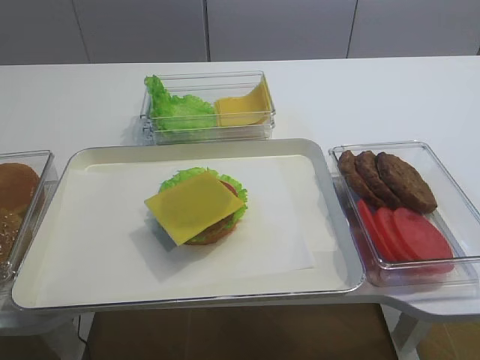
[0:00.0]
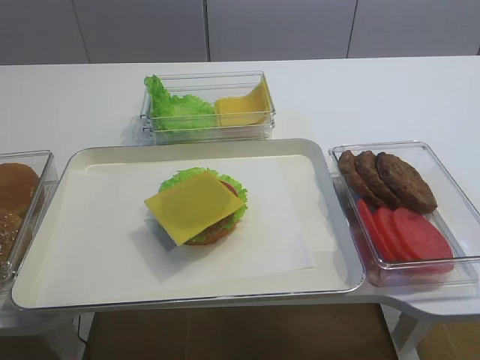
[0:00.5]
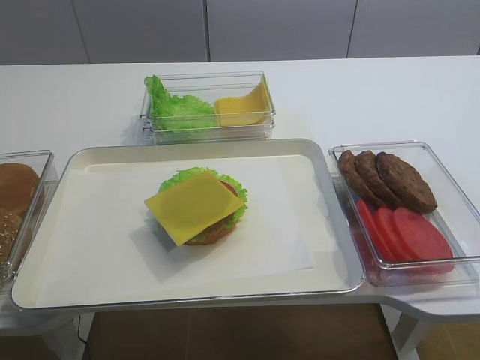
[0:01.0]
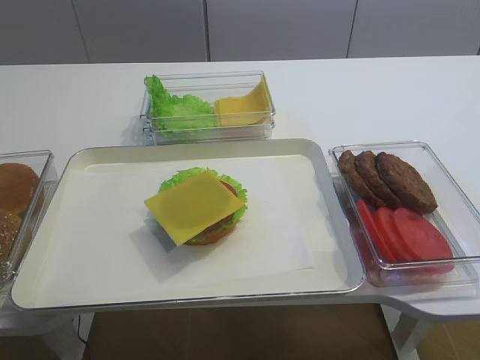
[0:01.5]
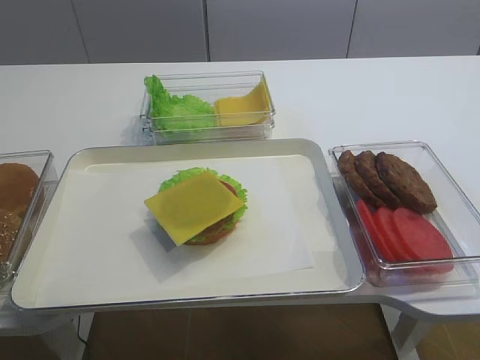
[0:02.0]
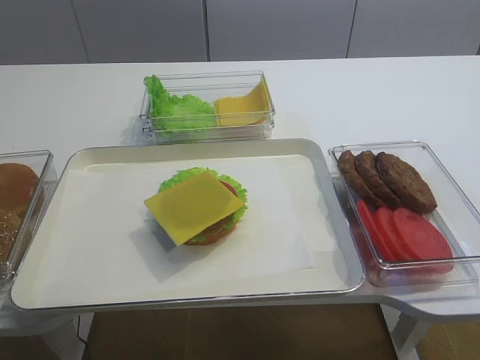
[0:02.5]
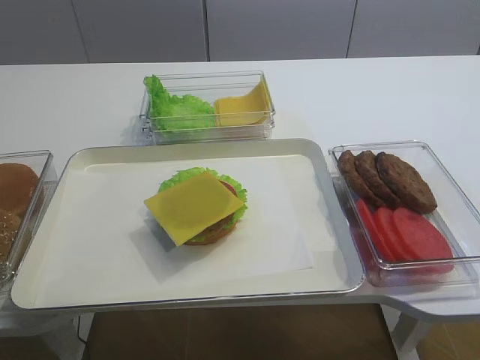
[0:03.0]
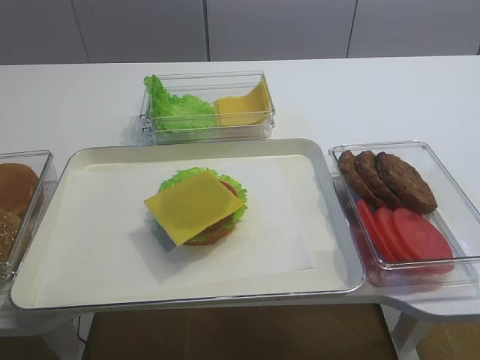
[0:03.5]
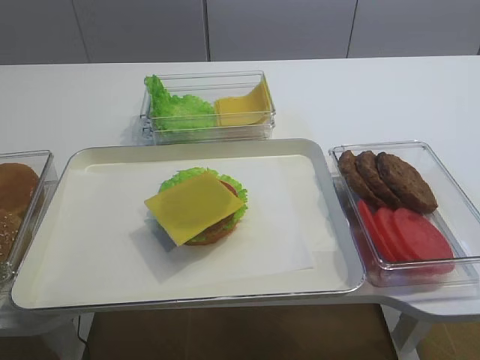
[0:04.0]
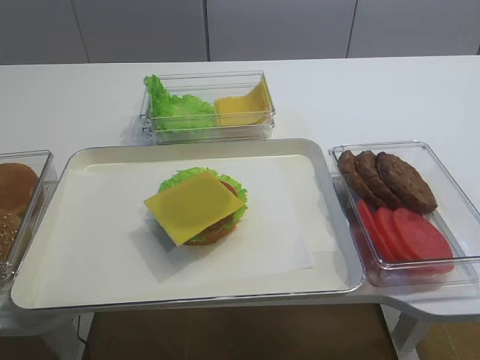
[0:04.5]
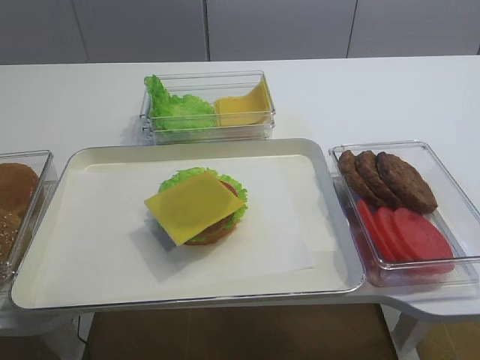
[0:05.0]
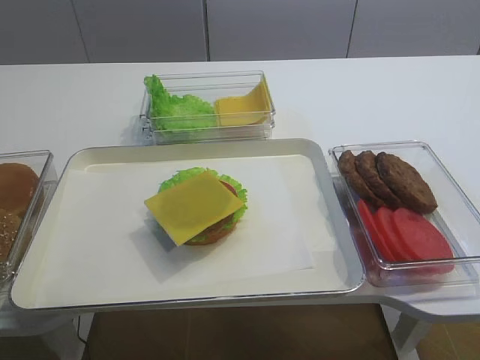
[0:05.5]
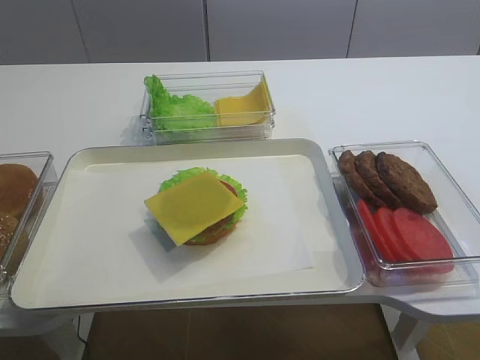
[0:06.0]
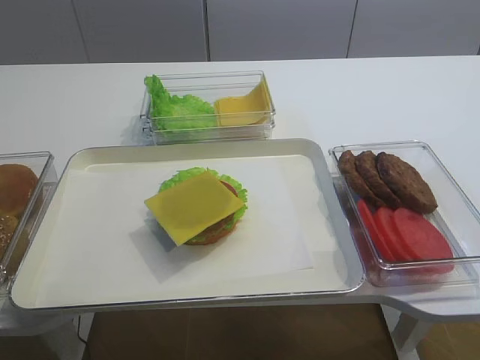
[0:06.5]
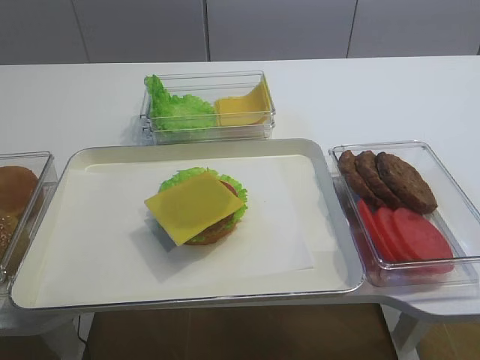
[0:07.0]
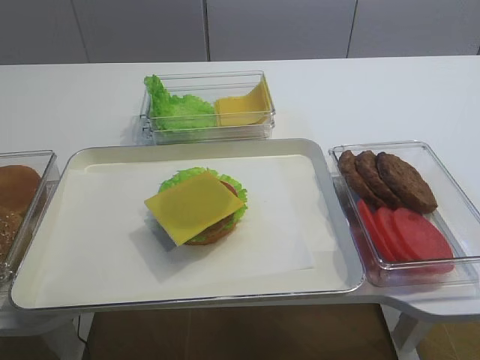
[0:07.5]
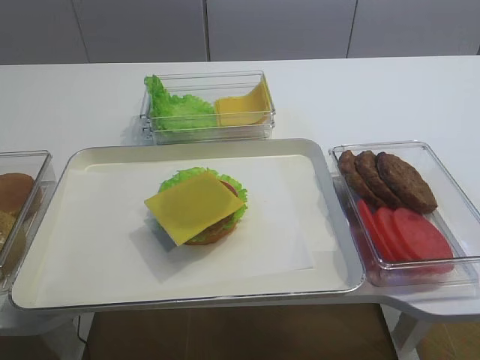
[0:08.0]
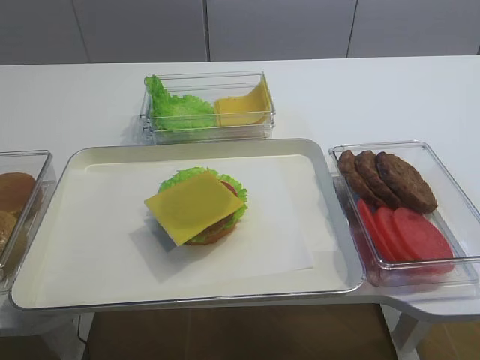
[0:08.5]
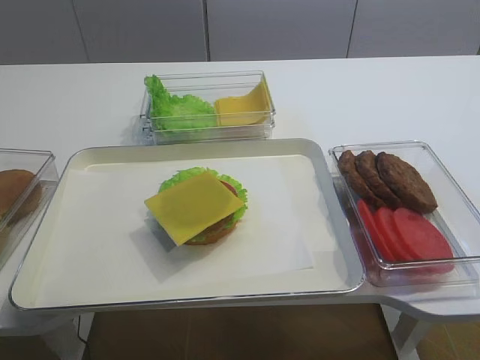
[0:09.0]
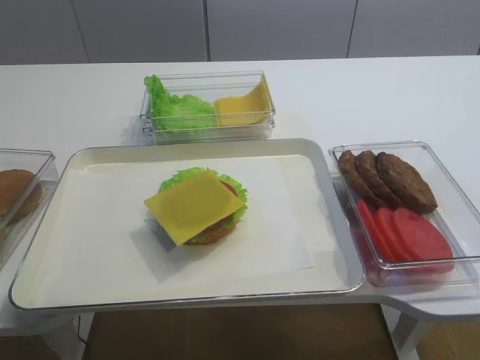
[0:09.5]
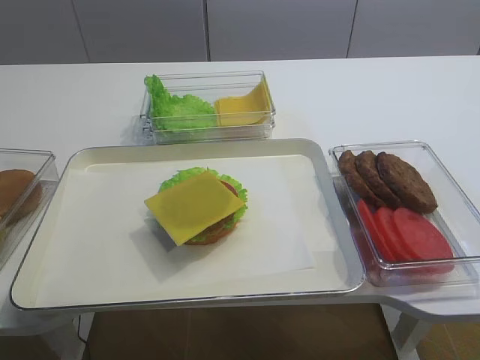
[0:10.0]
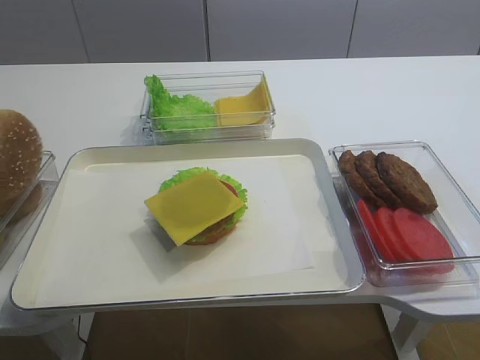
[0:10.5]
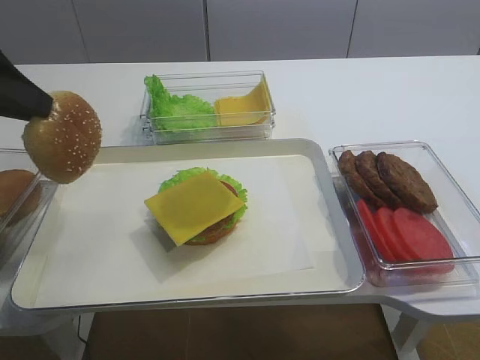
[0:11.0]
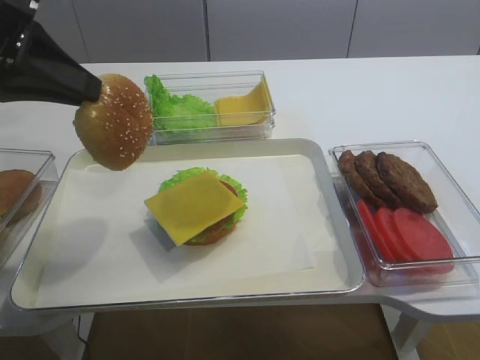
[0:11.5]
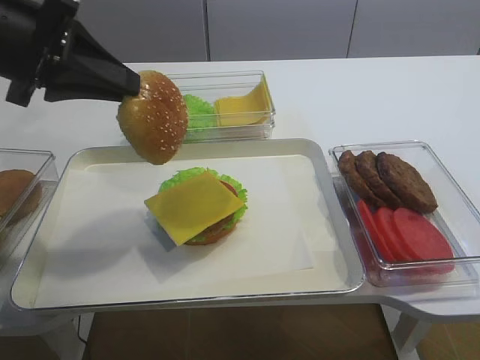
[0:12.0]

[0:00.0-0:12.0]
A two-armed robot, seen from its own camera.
Step, 0:00.0 to 0:10.0: Pick up the hamburger lid with the left gripper.
0:08.0 to 0:10.0: The grippers move only a little.
0:10.0 to 0:12.0: The left gripper is displaced to the right by about 15 cm.

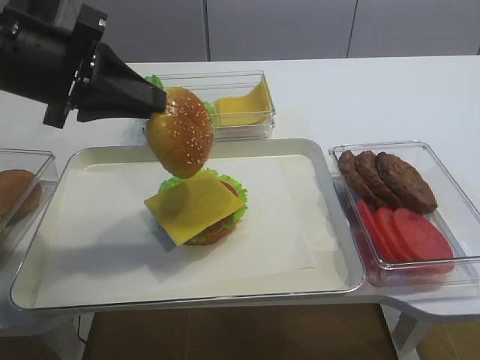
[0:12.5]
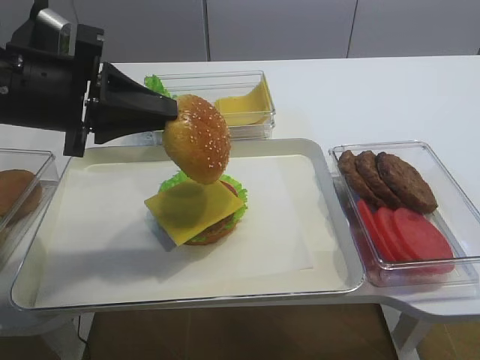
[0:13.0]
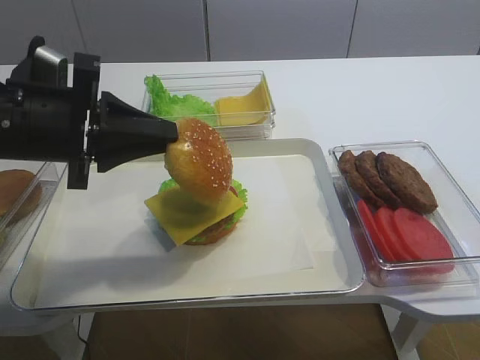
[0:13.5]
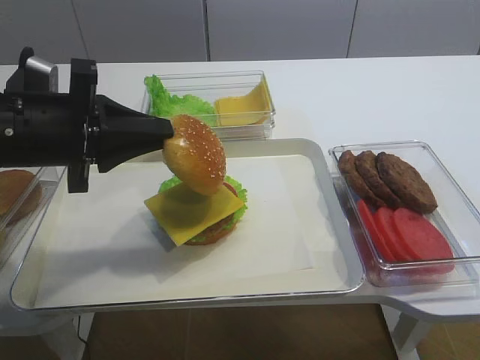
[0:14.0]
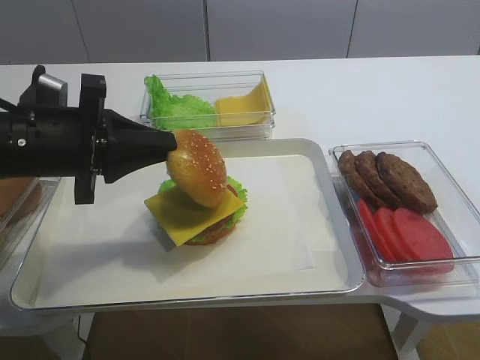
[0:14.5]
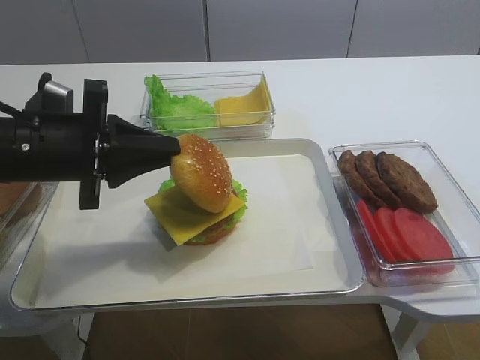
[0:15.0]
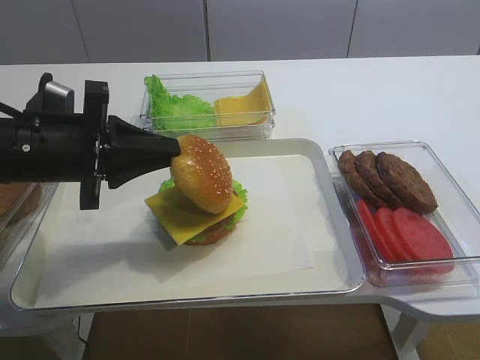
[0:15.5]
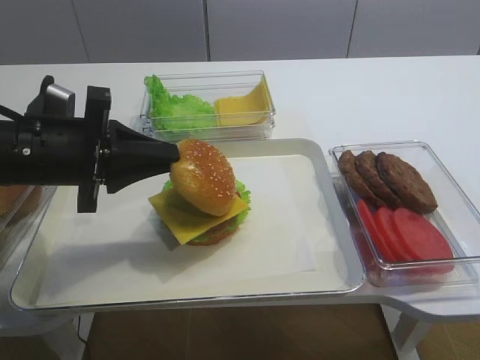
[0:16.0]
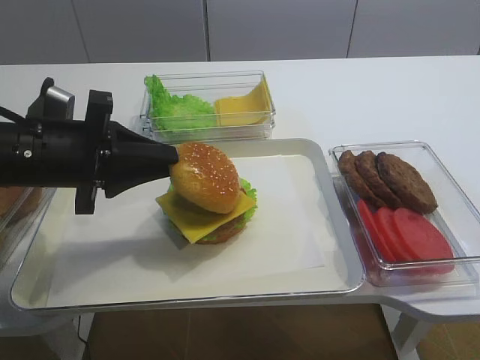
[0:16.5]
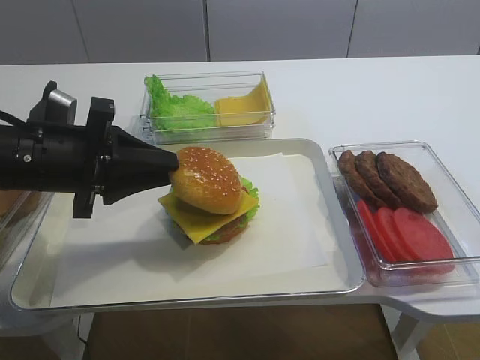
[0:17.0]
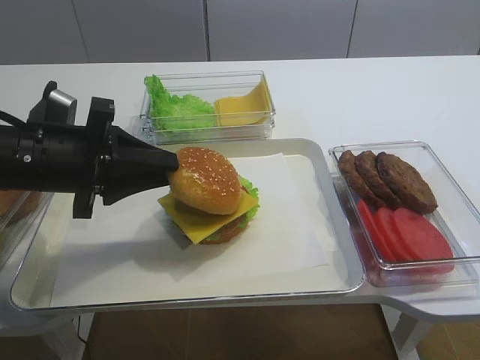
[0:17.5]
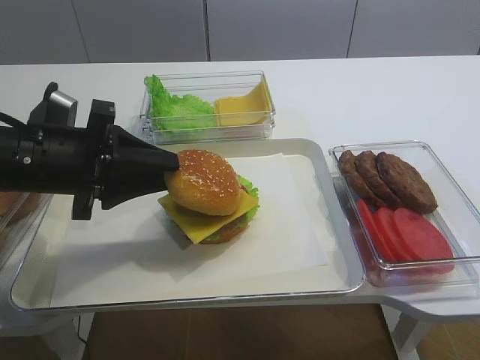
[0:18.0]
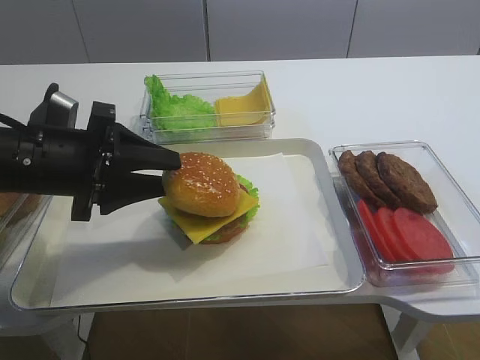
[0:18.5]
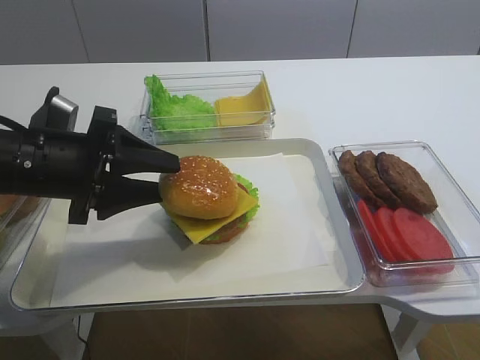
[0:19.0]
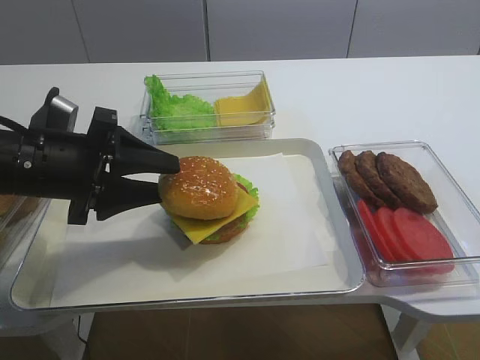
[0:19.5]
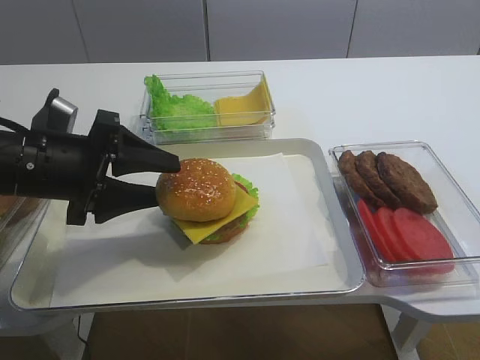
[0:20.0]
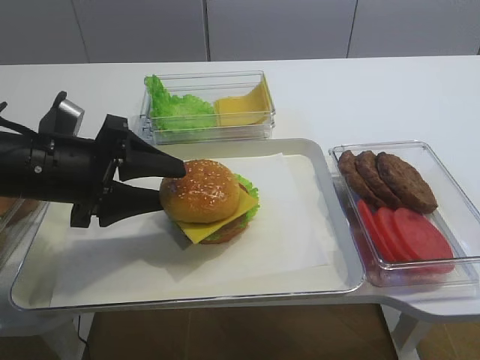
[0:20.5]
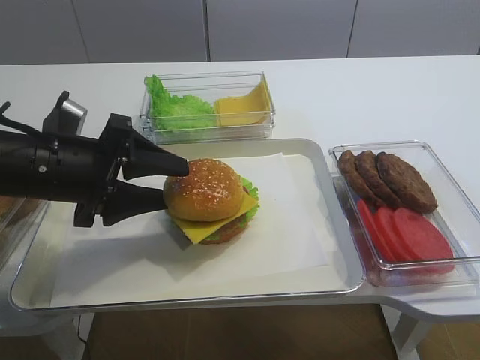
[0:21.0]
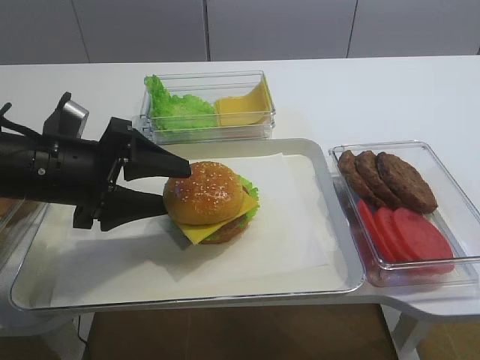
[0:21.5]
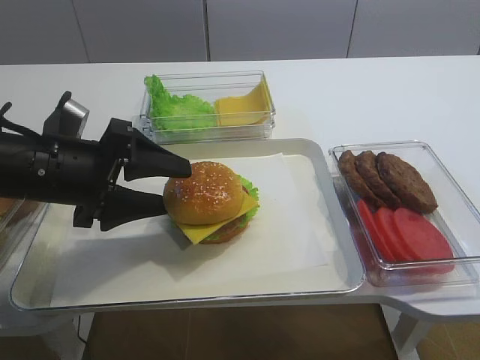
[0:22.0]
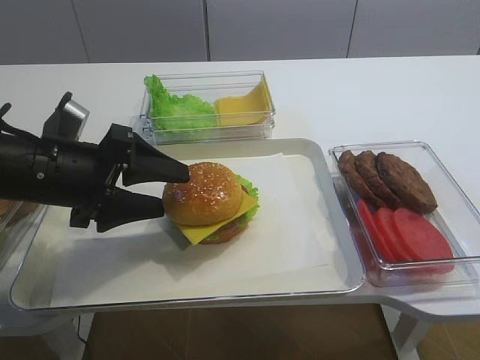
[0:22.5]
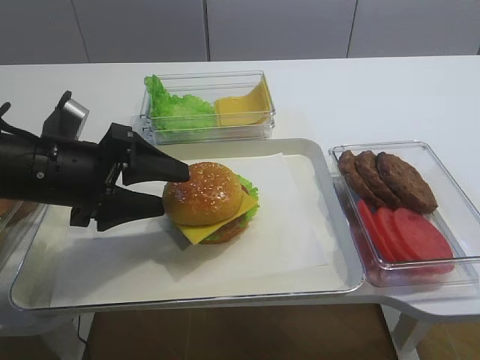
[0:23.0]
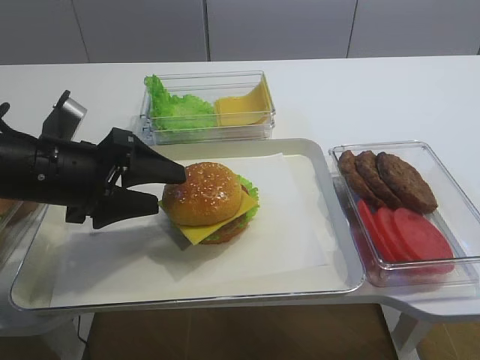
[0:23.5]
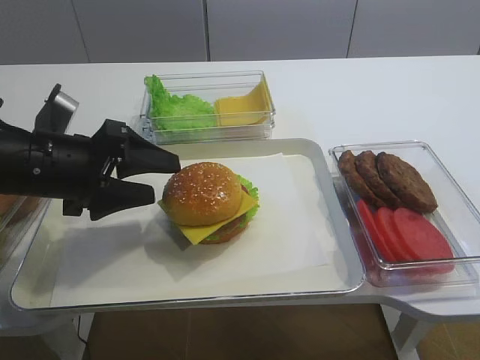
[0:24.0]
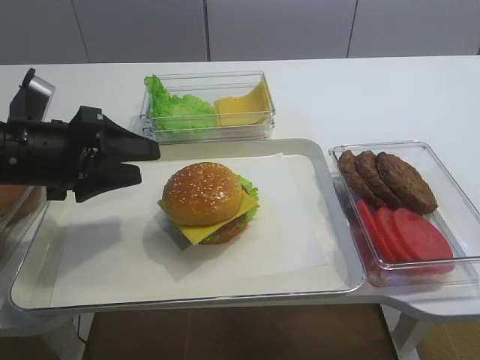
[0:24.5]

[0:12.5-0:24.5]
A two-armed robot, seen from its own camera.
0:12.5 to 0:14.5: The left gripper travels downward by approximately 10 cm.
0:14.5 to 0:16.5: Both grippers stay about where they are.
0:16.5 to 0:18.5: The left gripper opens up.
0:18.5 to 0:20.5: The grippers make only small movements.
0:20.5 to 0:22.5: Both grippers stay put.
0:22.5 to 0:24.5: There are only small adjustments of the grippers.

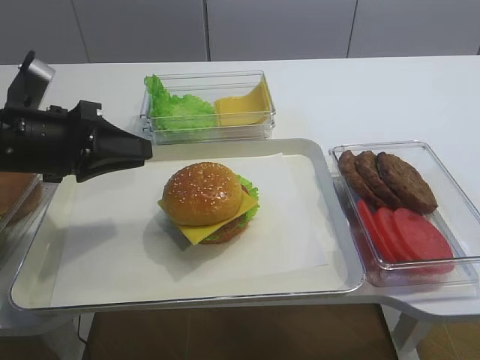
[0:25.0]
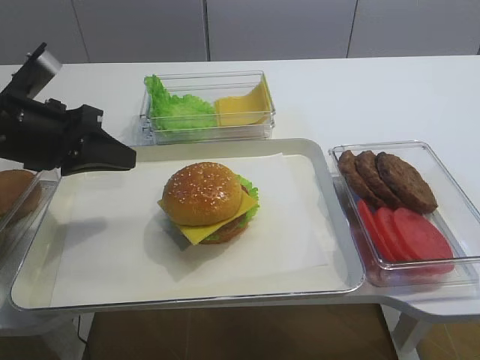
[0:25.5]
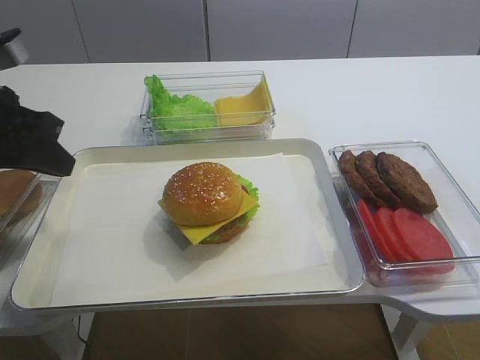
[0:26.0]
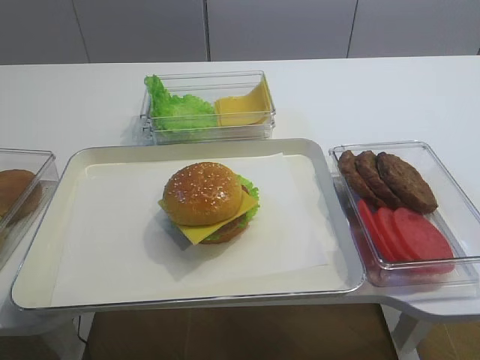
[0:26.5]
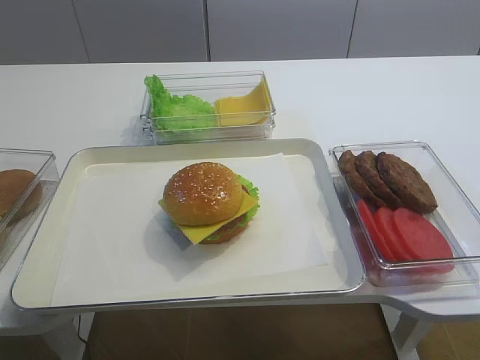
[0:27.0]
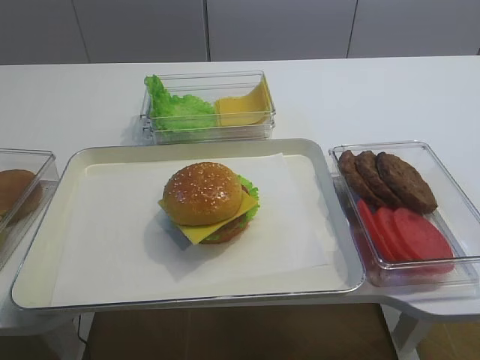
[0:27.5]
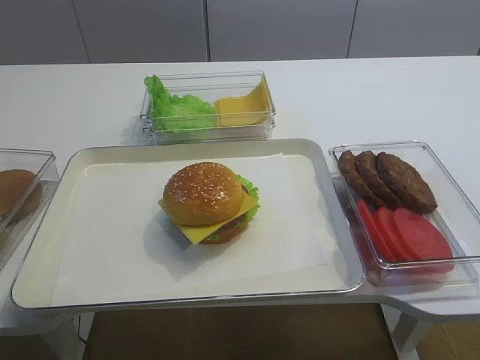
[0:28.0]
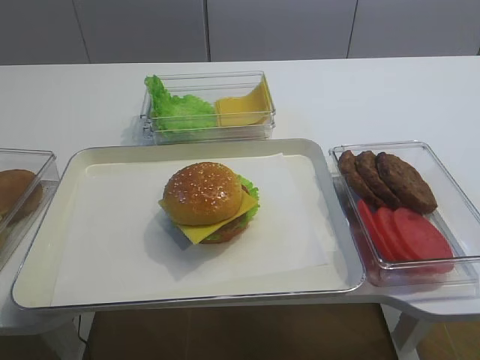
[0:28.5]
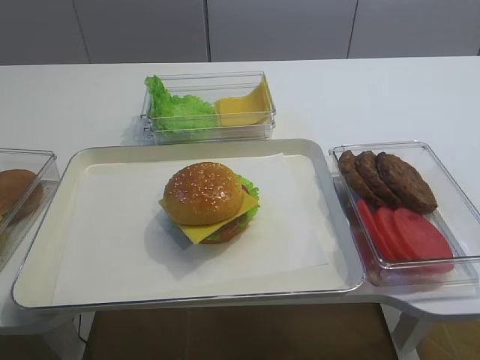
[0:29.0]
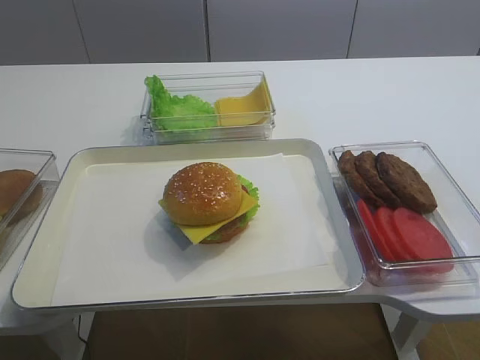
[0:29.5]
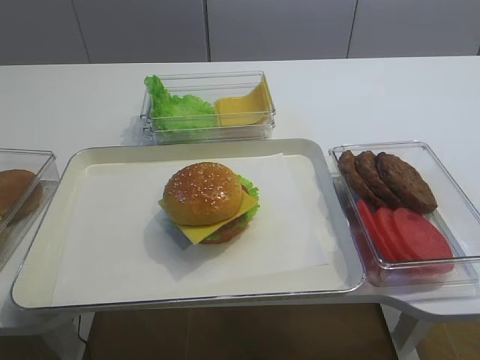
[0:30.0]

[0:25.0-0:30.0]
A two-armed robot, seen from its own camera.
0:25.0 to 0:27.5: The left gripper travels backward, upward and to the left by roughly 25 cm.
